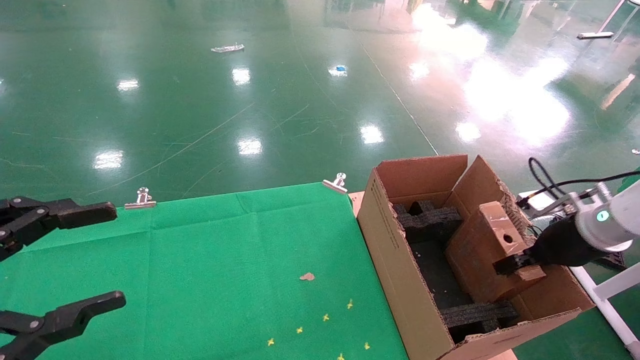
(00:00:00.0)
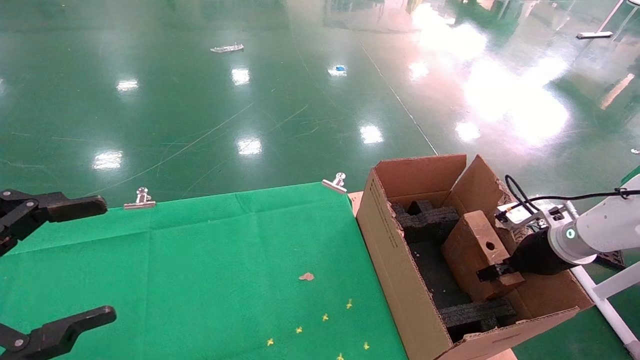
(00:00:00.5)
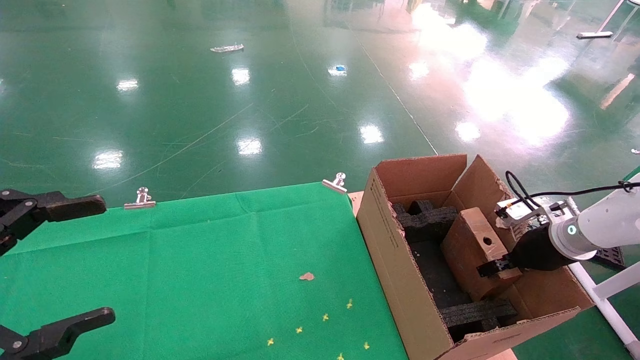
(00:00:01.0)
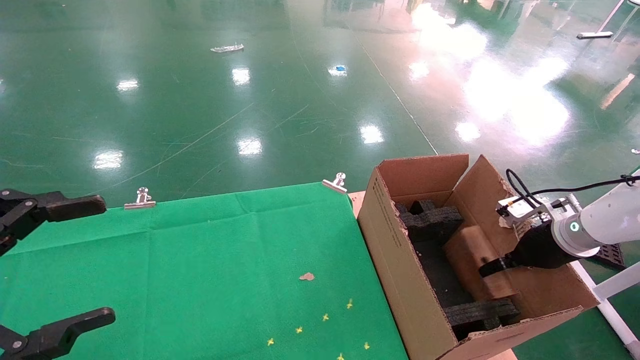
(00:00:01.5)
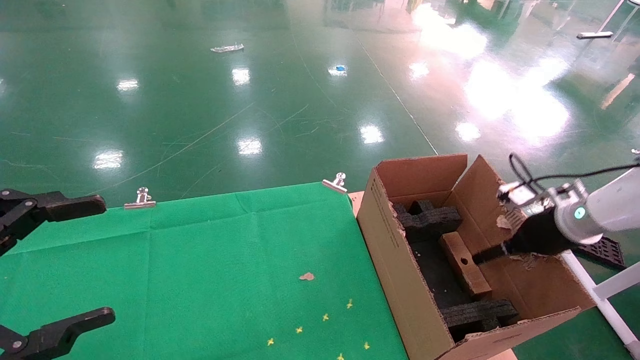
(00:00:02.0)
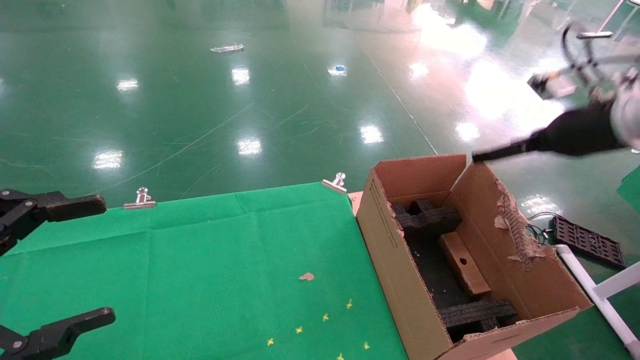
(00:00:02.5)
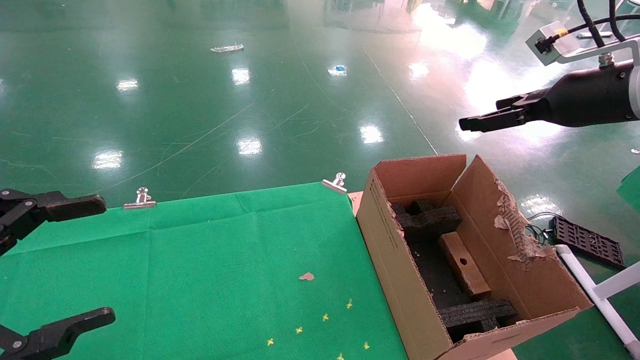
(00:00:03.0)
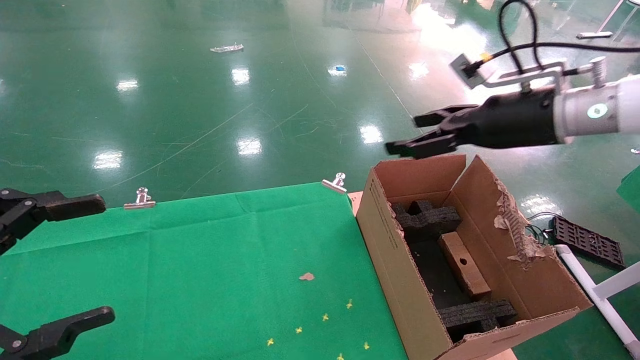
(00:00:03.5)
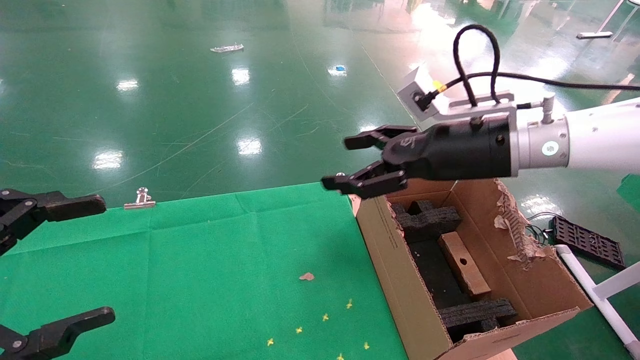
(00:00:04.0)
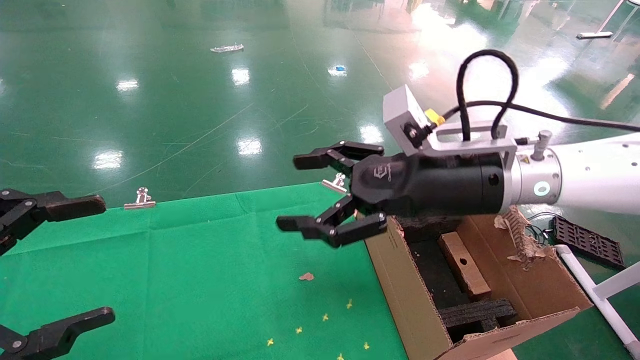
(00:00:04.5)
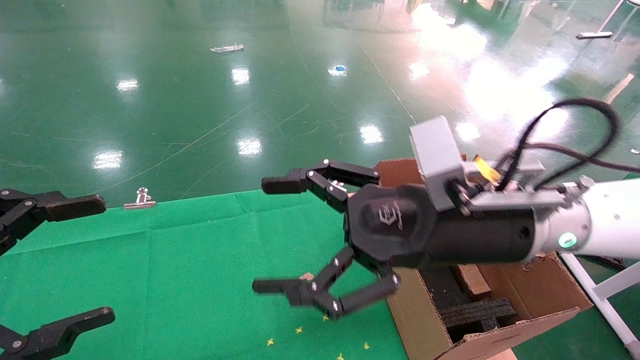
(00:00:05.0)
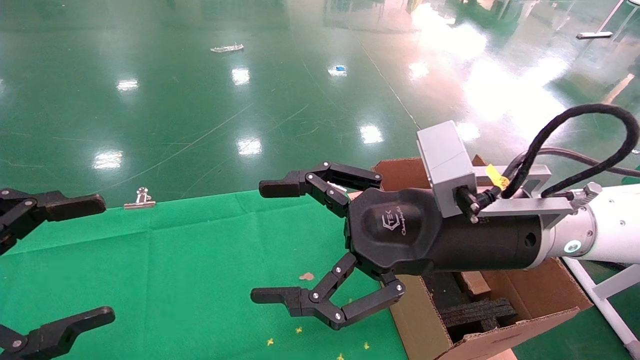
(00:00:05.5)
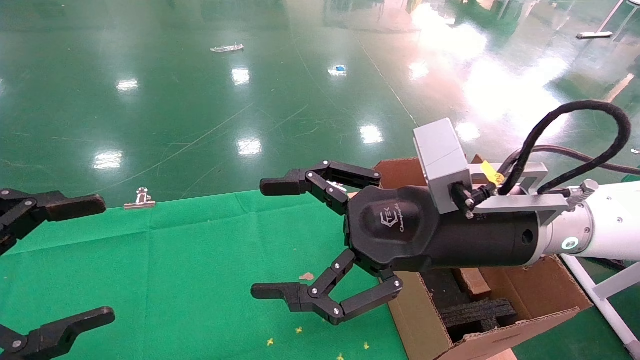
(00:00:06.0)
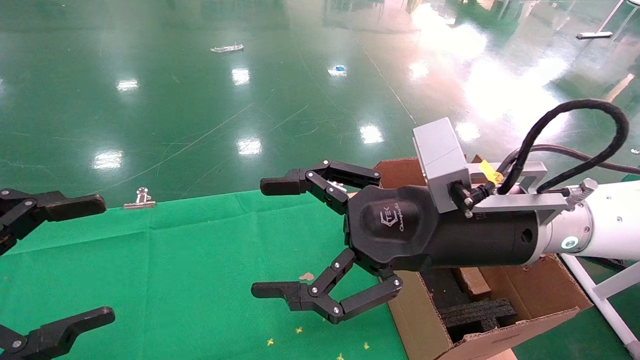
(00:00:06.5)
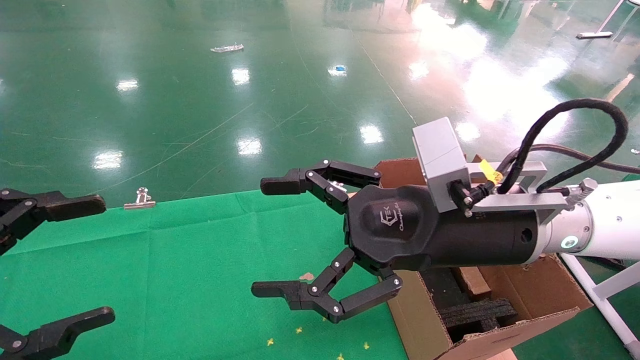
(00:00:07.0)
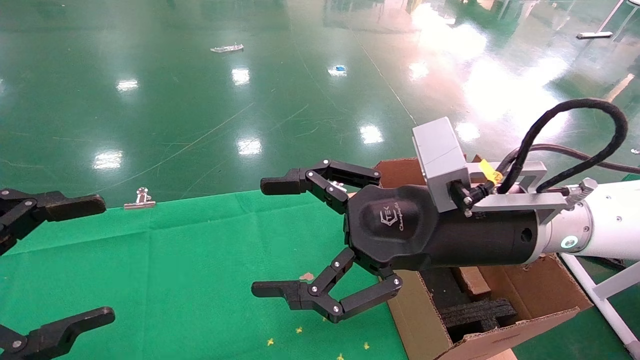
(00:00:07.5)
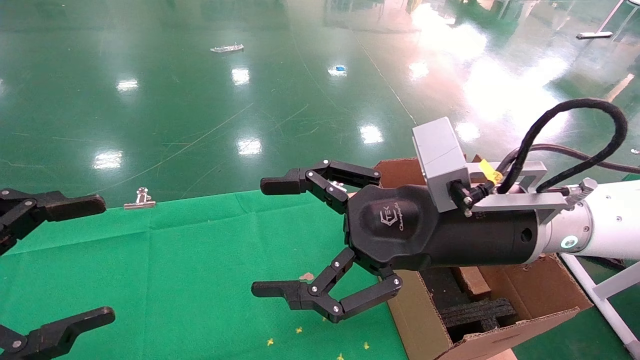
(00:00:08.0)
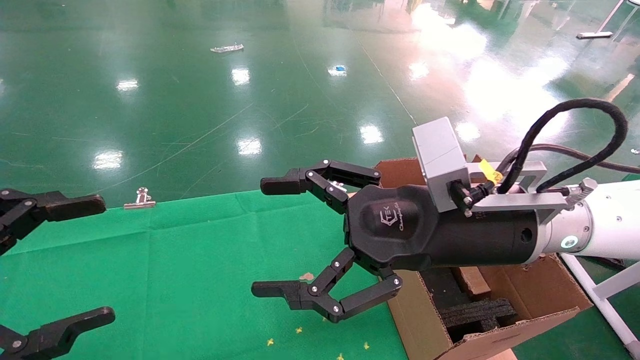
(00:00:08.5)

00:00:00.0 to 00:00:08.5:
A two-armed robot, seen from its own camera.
Task of the whole recording: using a robotic arm to pick up a cardboard box and palace it the carton.
00:00:00.0 to 00:00:02.0: The right gripper opens its fingers, while the left gripper opens.
00:00:02.0 to 00:00:04.0: The right gripper is displaced to the left and upward by approximately 25 cm.
00:00:04.0 to 00:00:06.5: The right gripper goes approximately 10 cm backward and to the left.
00:00:06.5 to 00:00:08.5: Both grippers stay put.

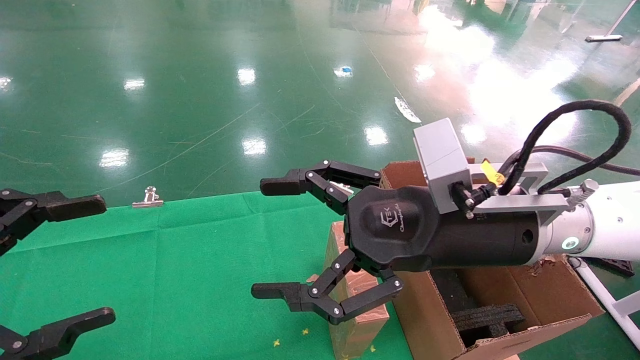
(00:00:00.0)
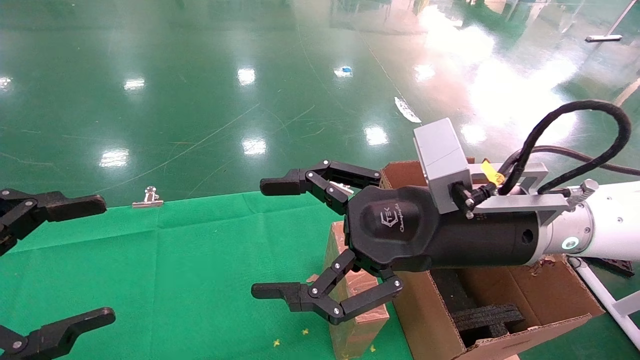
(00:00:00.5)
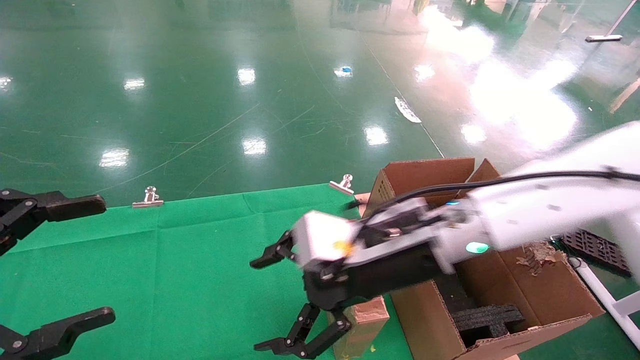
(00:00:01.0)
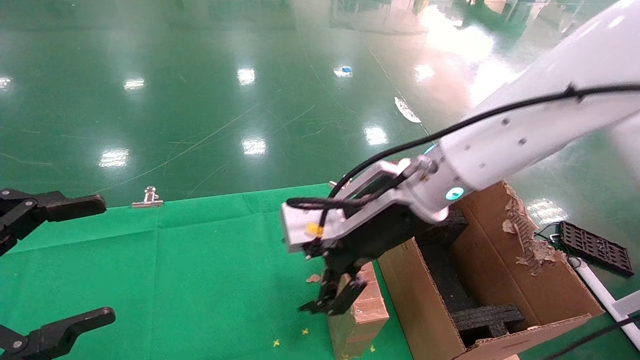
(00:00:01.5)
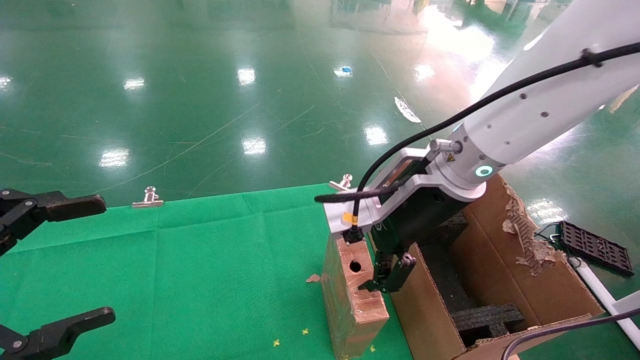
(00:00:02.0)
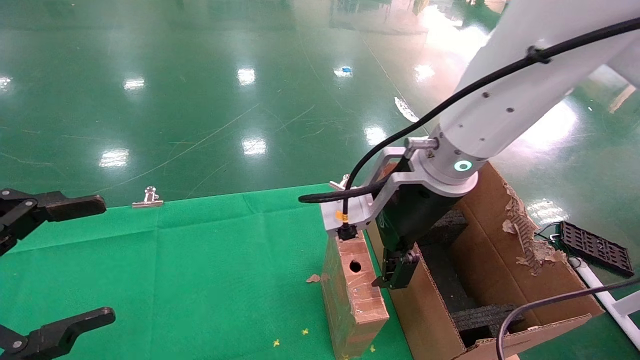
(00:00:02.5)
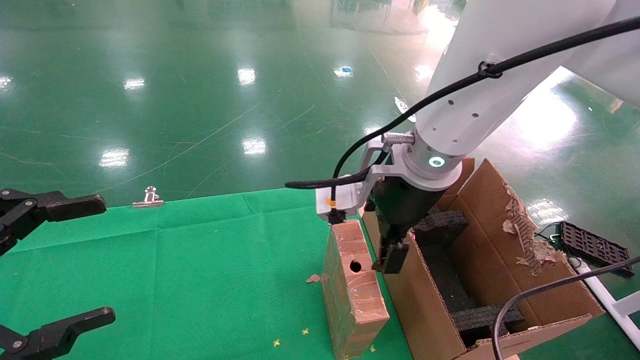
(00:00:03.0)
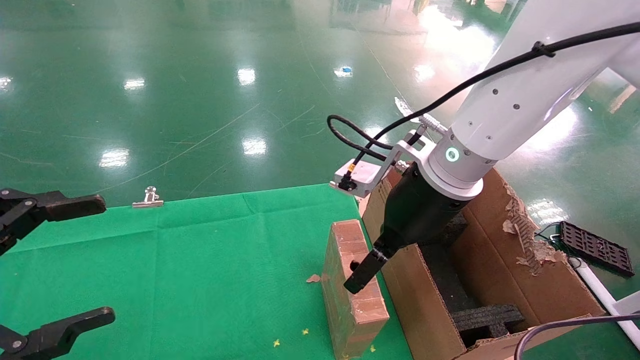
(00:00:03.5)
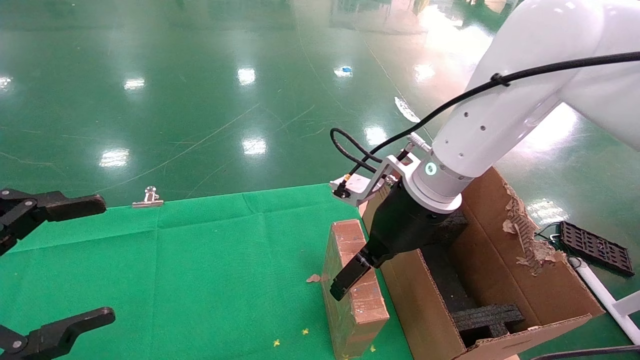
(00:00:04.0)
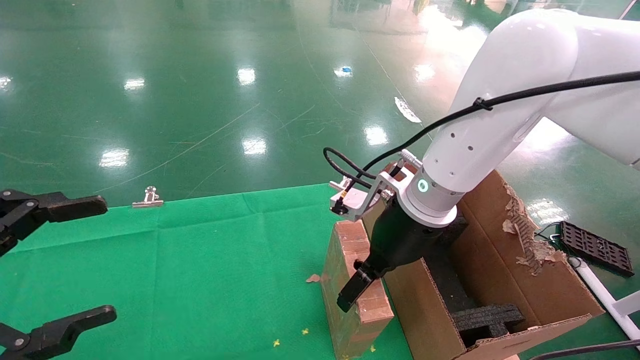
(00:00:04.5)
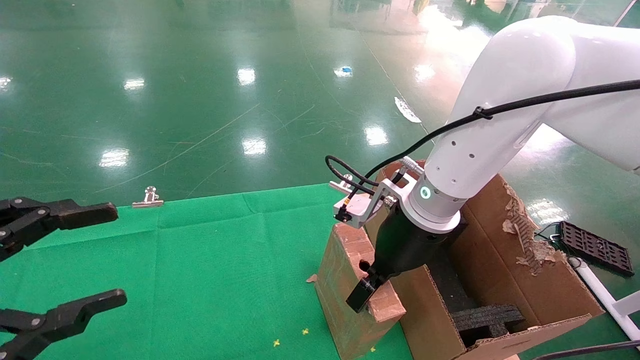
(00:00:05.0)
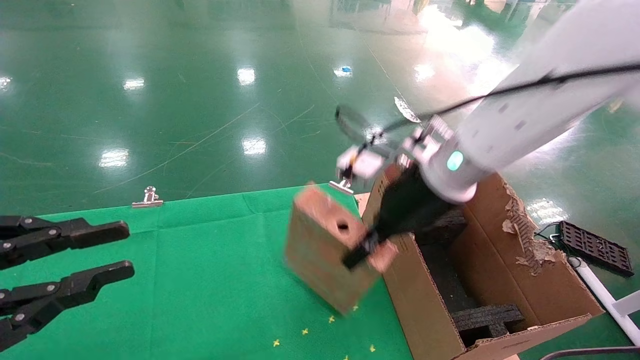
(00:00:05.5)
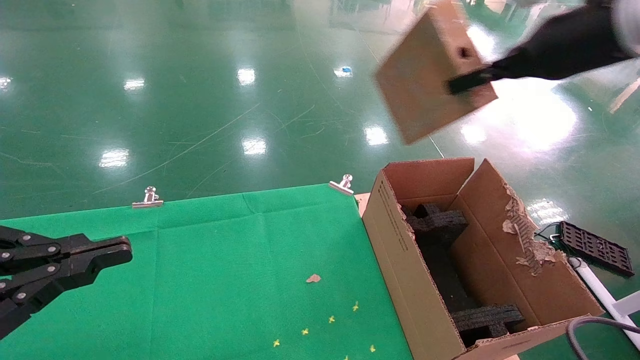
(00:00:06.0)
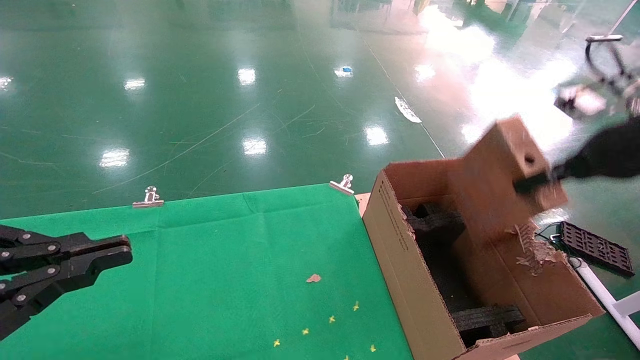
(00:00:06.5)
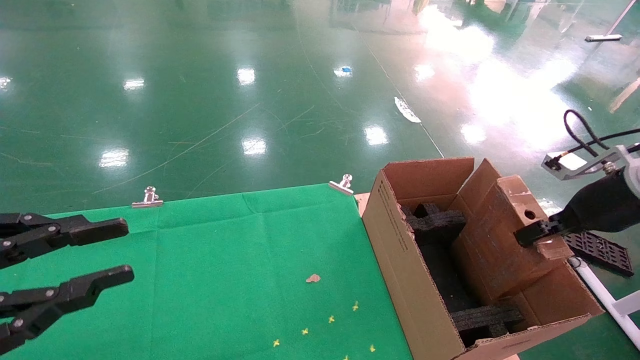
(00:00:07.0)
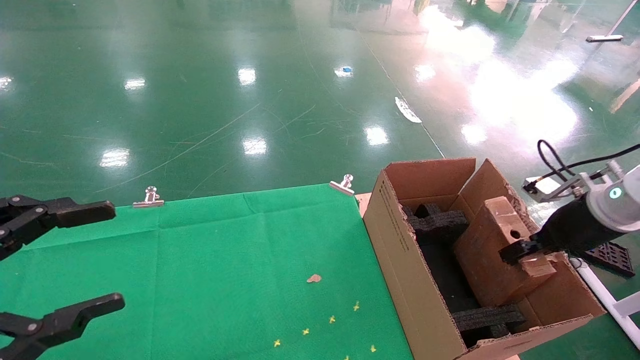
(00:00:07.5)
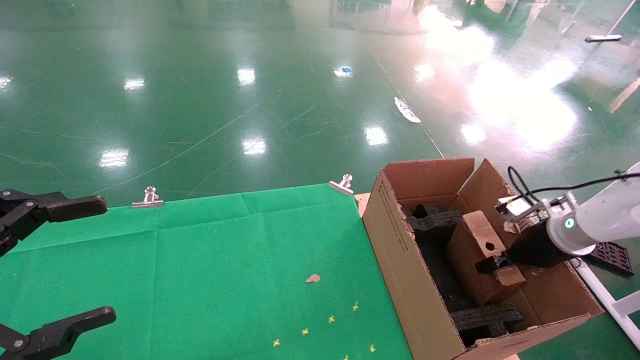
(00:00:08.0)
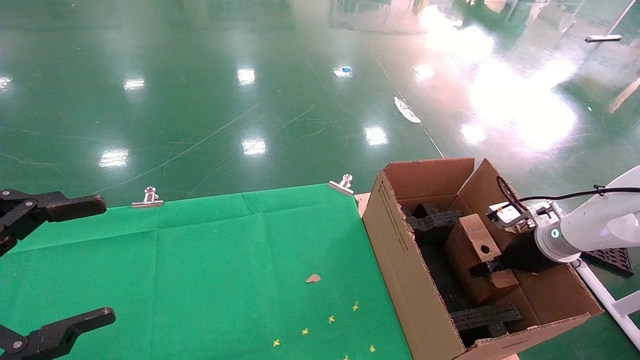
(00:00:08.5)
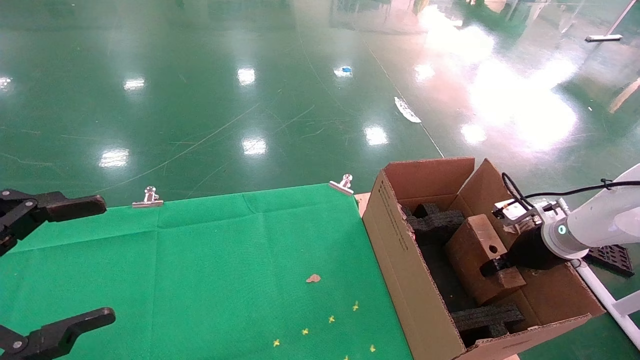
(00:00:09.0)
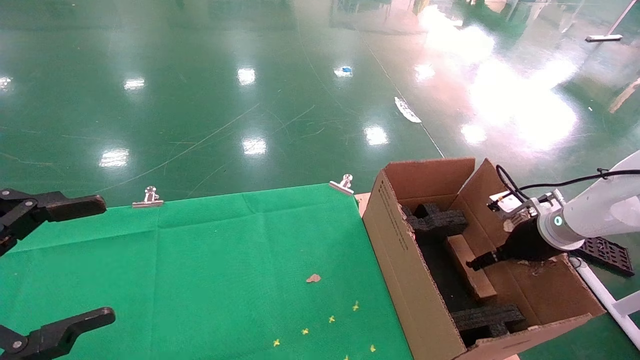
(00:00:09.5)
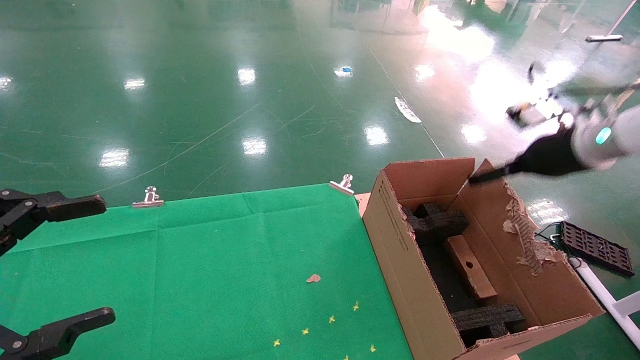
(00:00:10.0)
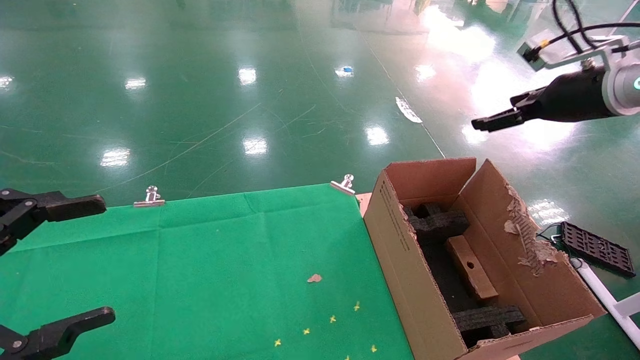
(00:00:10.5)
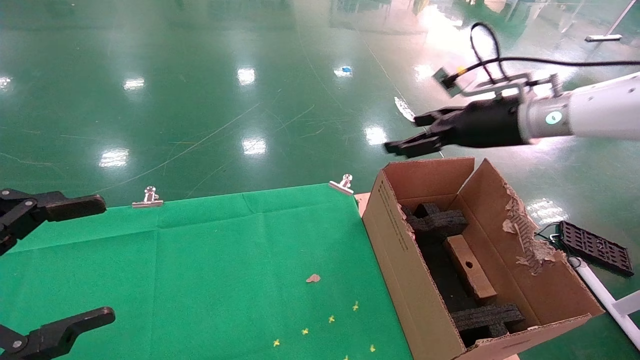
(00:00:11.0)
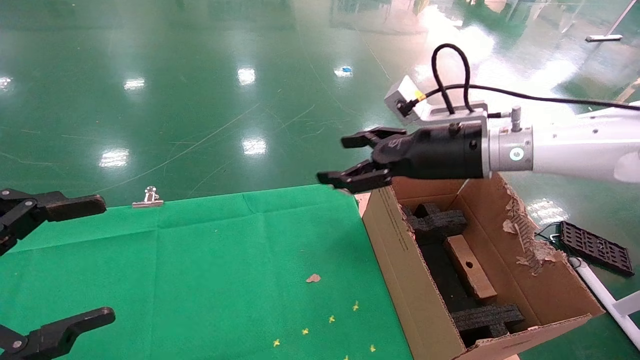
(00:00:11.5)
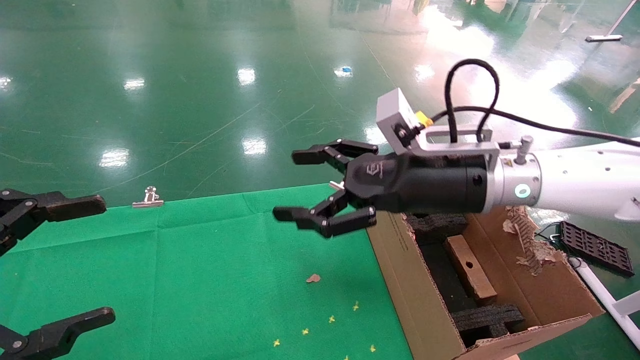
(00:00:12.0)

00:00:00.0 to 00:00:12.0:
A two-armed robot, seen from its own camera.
Task of the whole recording: using a robotic arm to pick up a cardboard box and palace it the carton.
Step, 00:00:01.0 to 00:00:05.0: Pick up the mouse and the power cord paper box.
Step, 00:00:05.5 to 00:00:09.5: Place the mouse and the power cord paper box into the container.
00:00:00.0 to 00:00:02.0: The right gripper shifts about 5 cm forward.
00:00:02.0 to 00:00:04.0: The right gripper ends up about 5 cm from where it was.
00:00:04.0 to 00:00:06.0: The left gripper closes. The right gripper shifts approximately 25 cm to the right and upward, and closes up.
00:00:06.0 to 00:00:08.0: The right gripper heads downward and to the right, covering approximately 30 cm. Meanwhile the left gripper opens its fingers.
00:00:08.0 to 00:00:10.0: The right gripper travels upward by roughly 15 cm, and opens up.
00:00:10.0 to 00:00:12.0: The right gripper shifts roughly 25 cm to the left.
